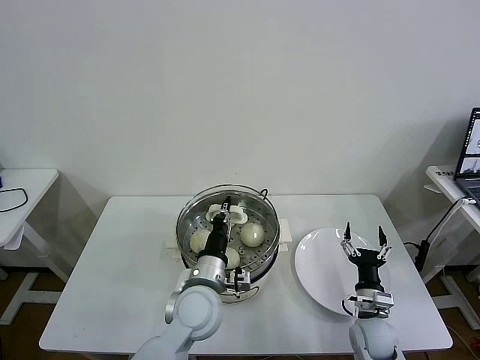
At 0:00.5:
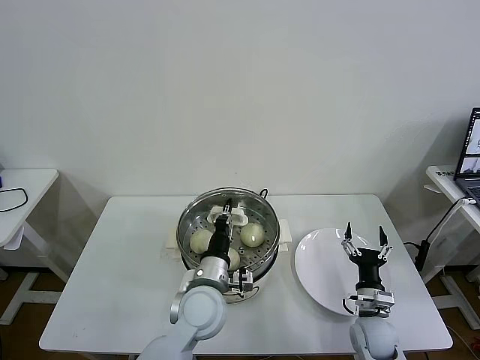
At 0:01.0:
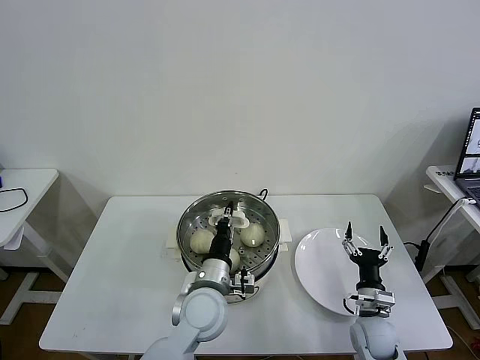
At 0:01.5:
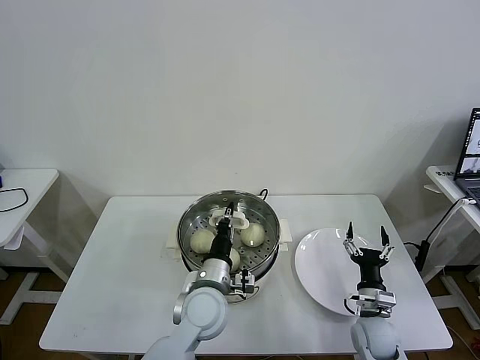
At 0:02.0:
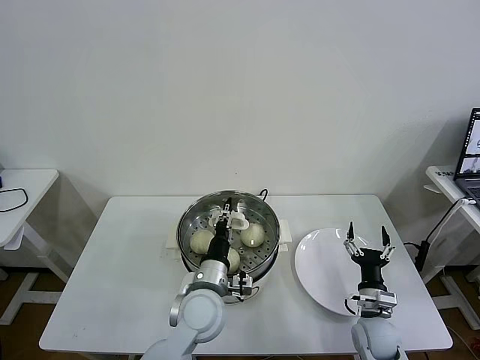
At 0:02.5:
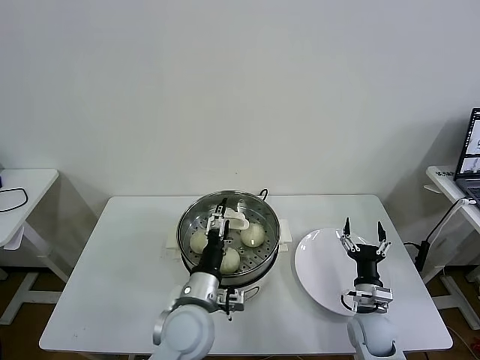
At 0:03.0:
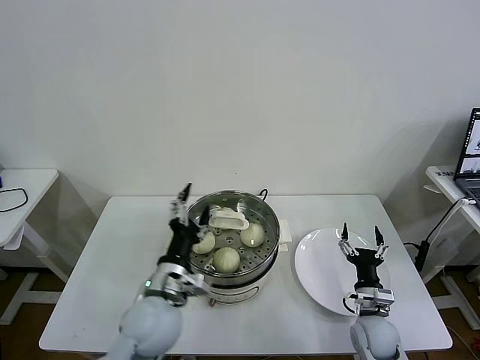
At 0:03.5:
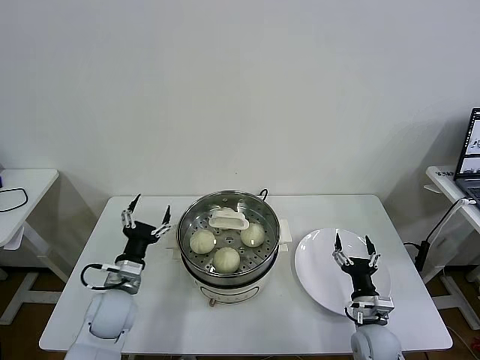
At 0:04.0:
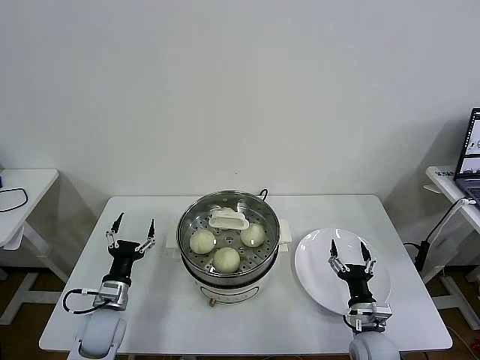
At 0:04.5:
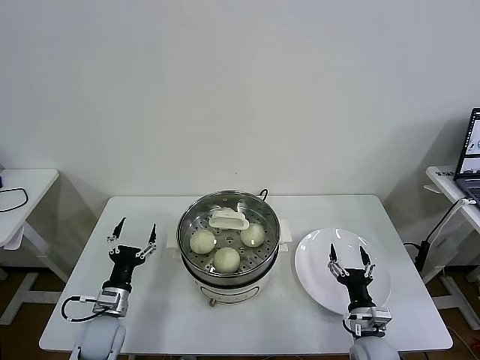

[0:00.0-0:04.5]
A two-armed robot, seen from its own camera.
Task of the whole recording: take steamed baozi put them in steamer then cover it.
Step, 0:00.0 to 0:02.5: Place the pot lid on the steamer with left gripper.
0:00.0 to 0:02.0: The grippers make only small movements.
0:02.0 to 0:04.5: The left gripper is displaced to the left and downward by about 25 cm, and opens its fingers.

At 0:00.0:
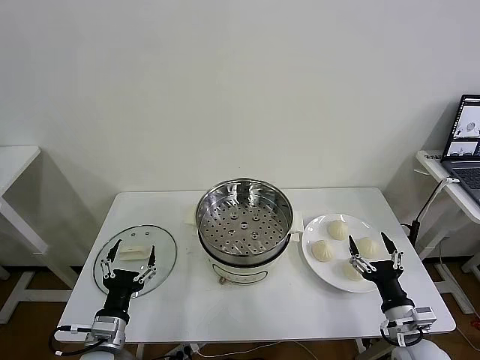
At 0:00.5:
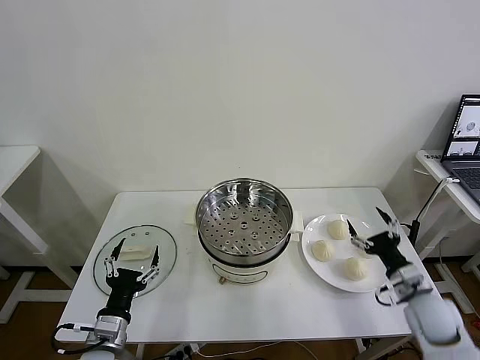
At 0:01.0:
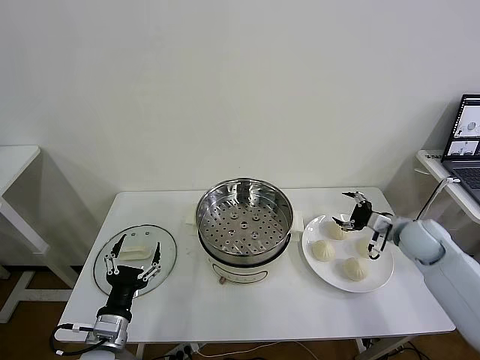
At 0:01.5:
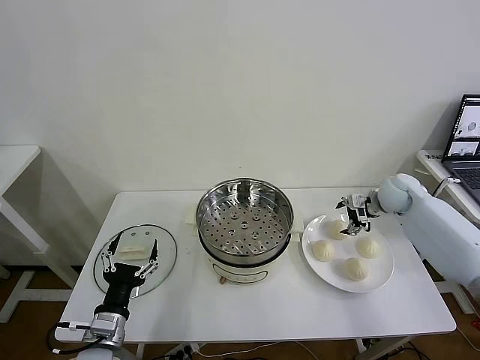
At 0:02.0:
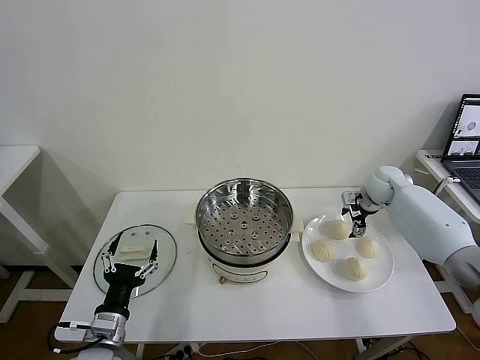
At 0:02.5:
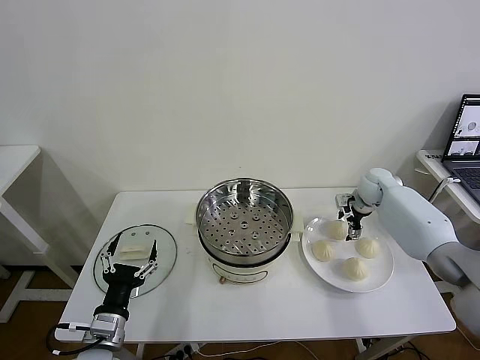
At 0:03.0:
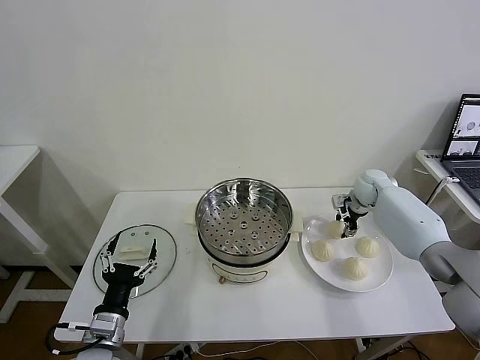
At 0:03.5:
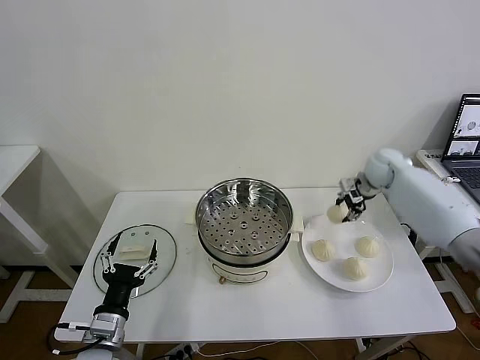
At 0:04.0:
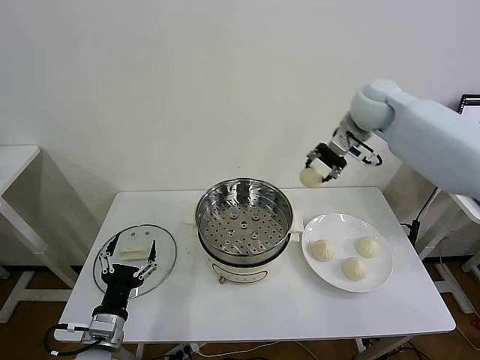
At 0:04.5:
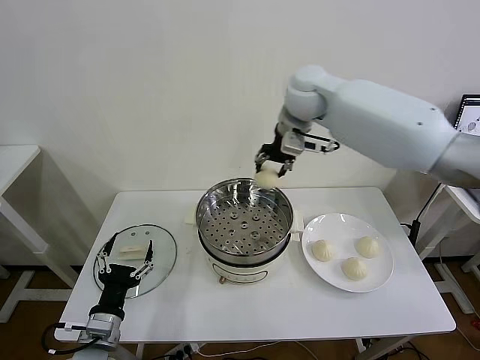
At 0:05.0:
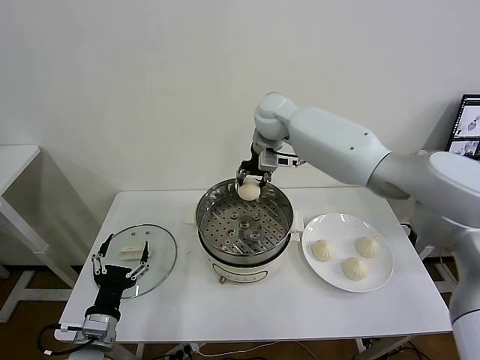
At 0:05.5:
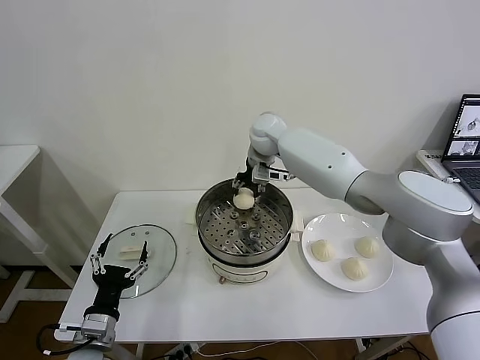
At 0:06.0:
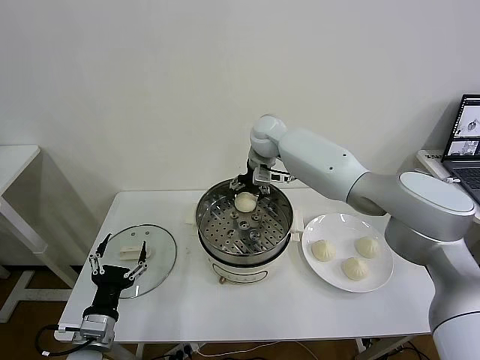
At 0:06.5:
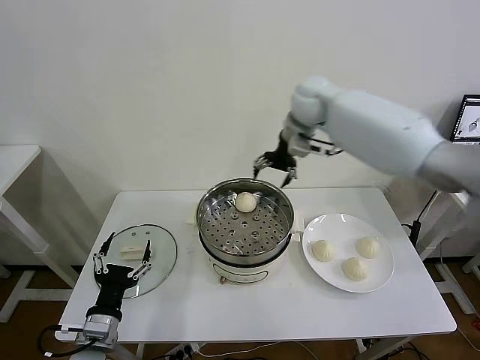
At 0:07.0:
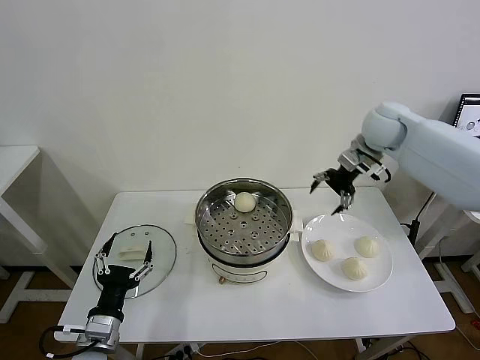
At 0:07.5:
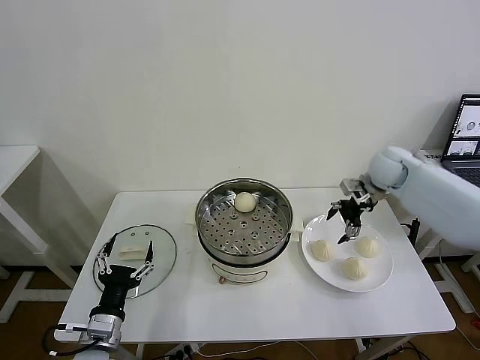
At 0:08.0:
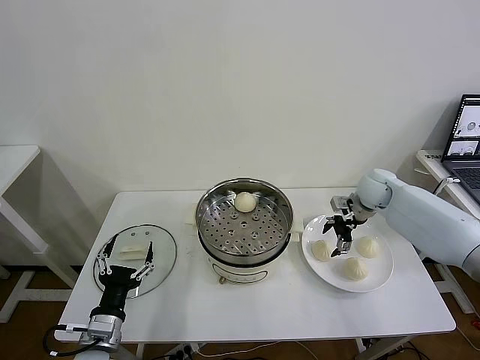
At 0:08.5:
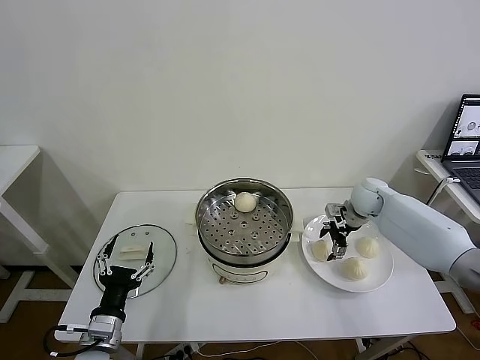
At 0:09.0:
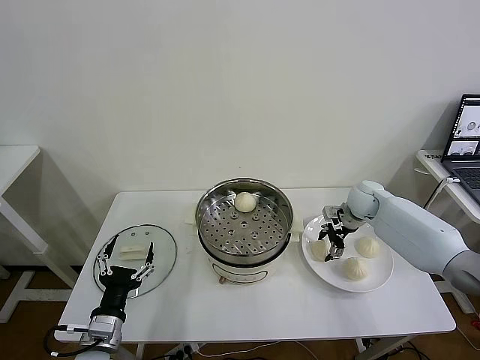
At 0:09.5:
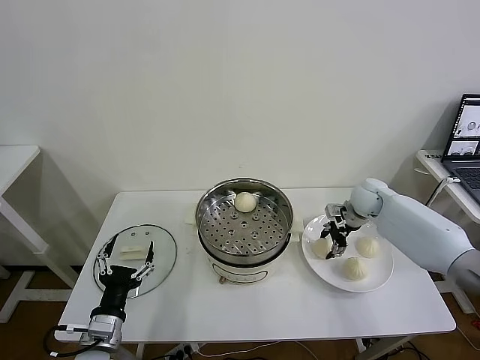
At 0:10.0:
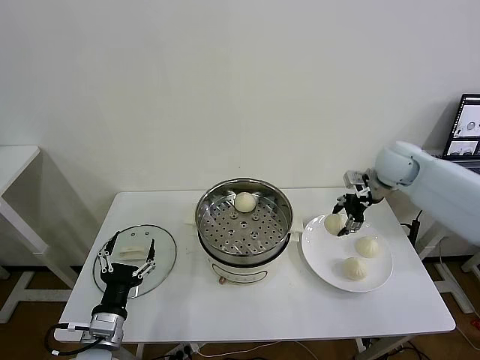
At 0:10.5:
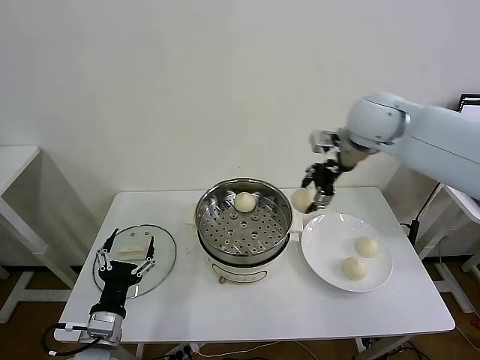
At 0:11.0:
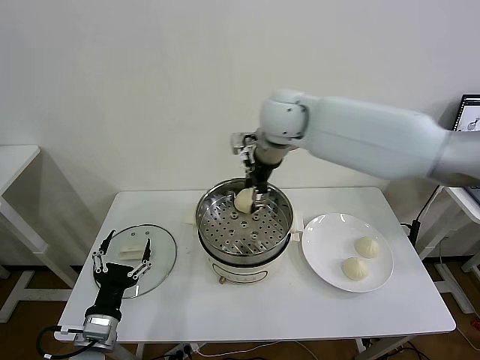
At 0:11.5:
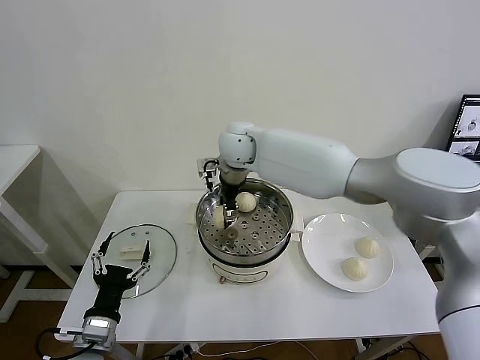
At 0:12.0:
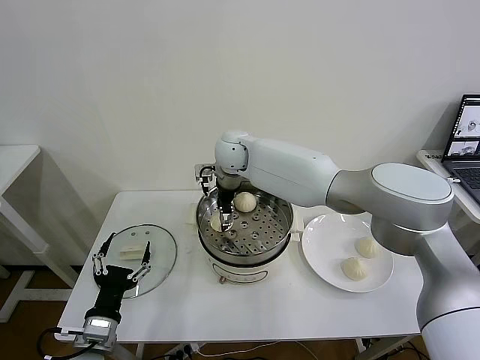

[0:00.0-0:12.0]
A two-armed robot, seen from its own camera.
Task of the whole recording: take steamed baozi put them in steamer then cover it.
Step, 0:00.0 to 0:02.5: Grasp the baozi in the plate with right gripper.
Step, 0:03.0 to 0:06.0: Place the baozi on the steamer with right gripper.
Step, 0:06.5 to 0:09.0: Grasp the baozi in the plate with right gripper.
0:02.0 to 0:04.0: The right gripper is displaced upward and to the left by approximately 30 cm, and closes its fingers.
0:04.0 to 0:06.0: The right gripper goes about 20 cm to the left and downward, and opens.
0:06.0 to 0:08.0: The right gripper travels to the right and downward by approximately 30 cm.
0:08.0 to 0:10.0: The right gripper travels upward by about 15 cm, and closes its fingers.
0:10.0 to 0:12.0: The right gripper moves to the left, some 35 cm, and opens its fingers.

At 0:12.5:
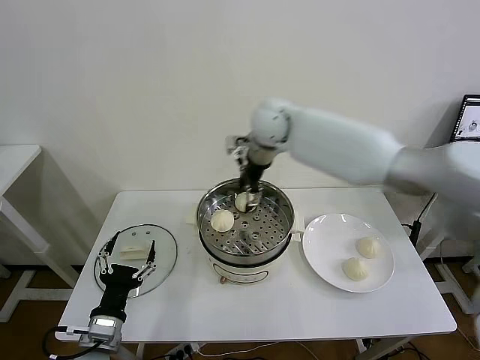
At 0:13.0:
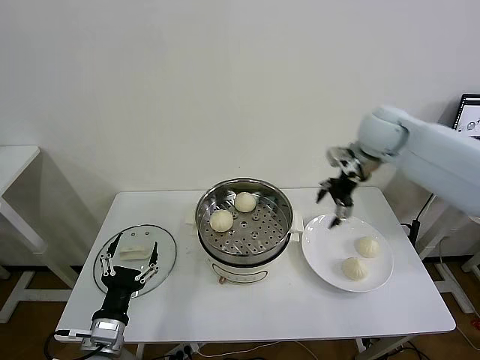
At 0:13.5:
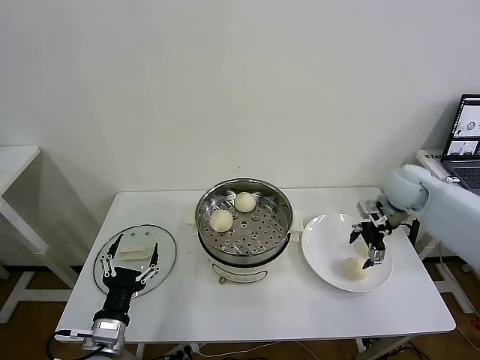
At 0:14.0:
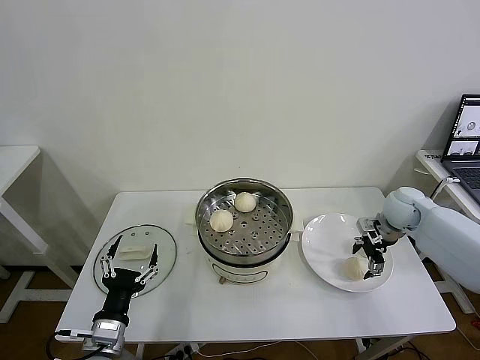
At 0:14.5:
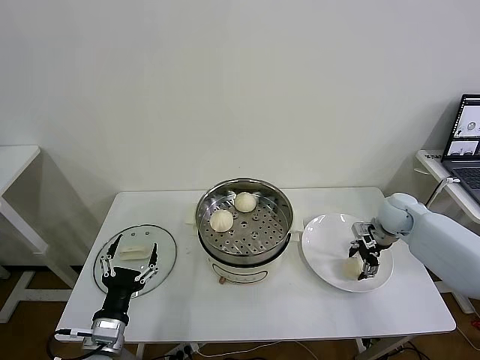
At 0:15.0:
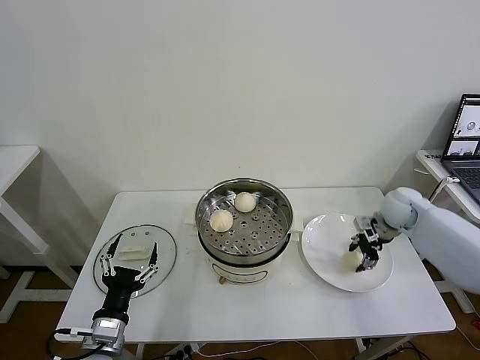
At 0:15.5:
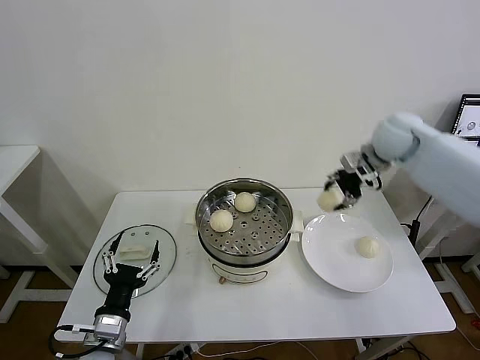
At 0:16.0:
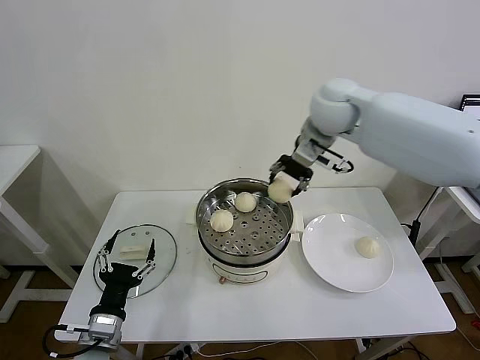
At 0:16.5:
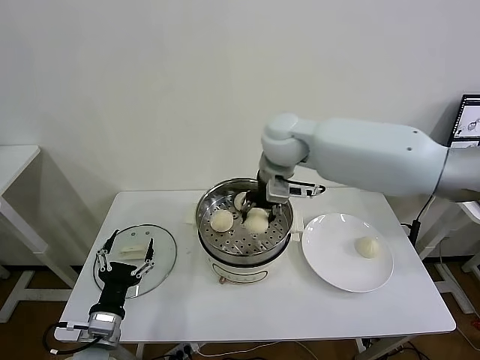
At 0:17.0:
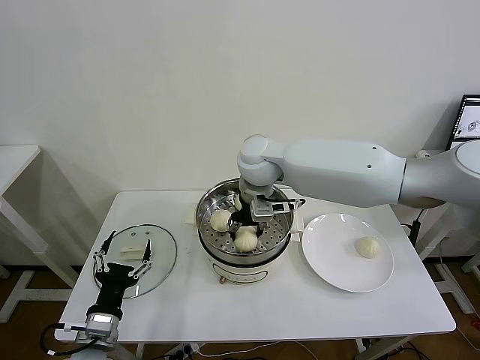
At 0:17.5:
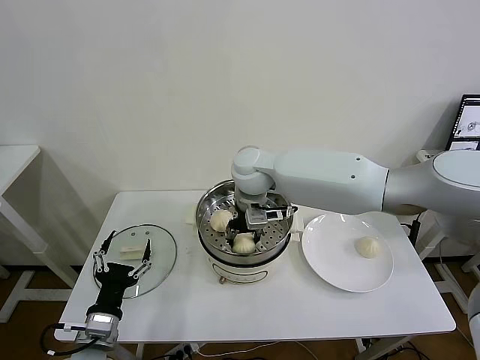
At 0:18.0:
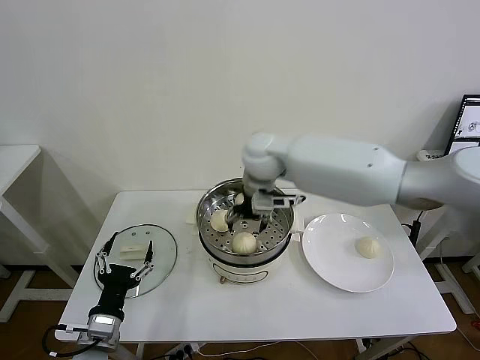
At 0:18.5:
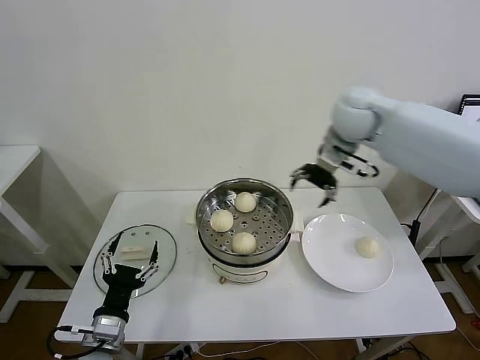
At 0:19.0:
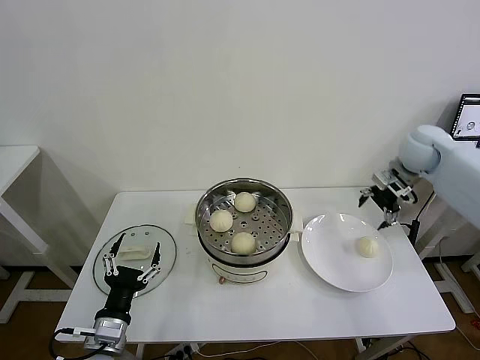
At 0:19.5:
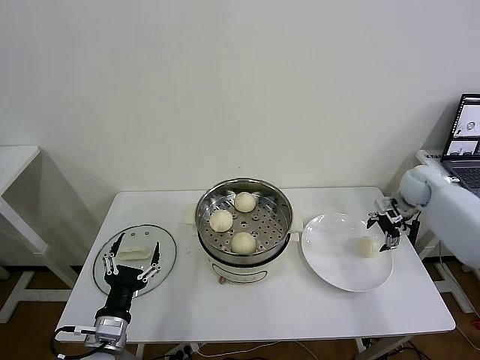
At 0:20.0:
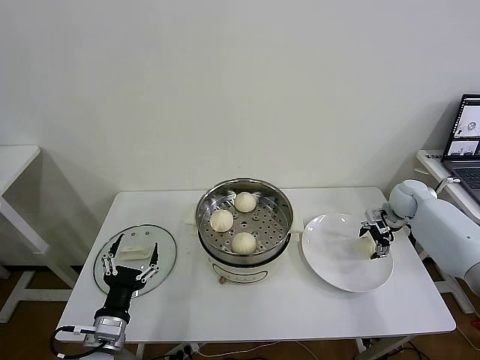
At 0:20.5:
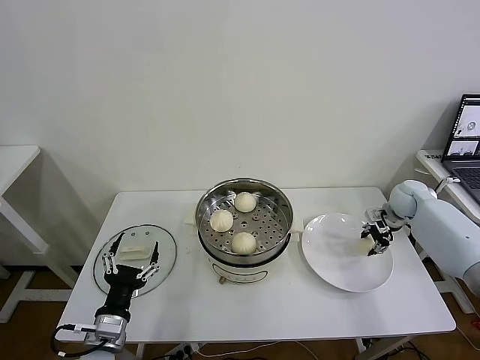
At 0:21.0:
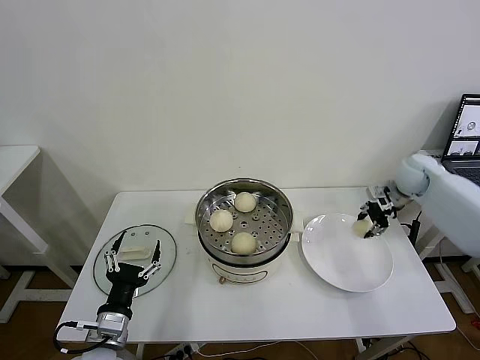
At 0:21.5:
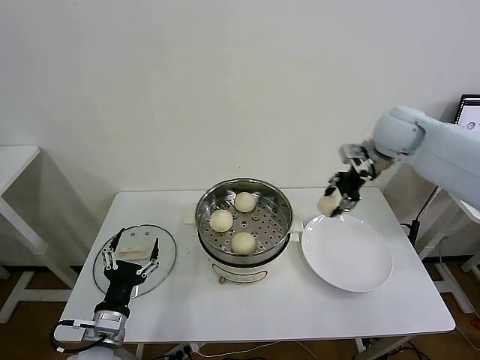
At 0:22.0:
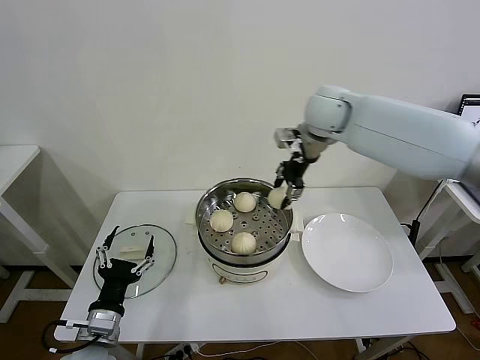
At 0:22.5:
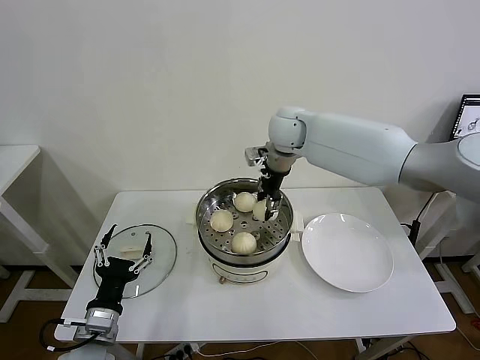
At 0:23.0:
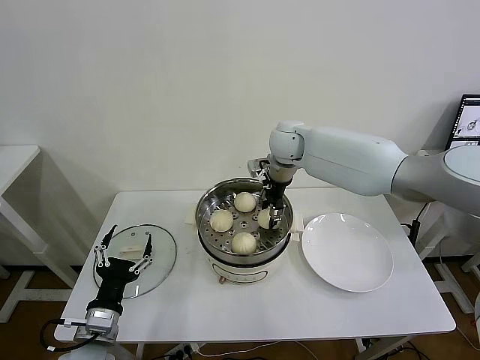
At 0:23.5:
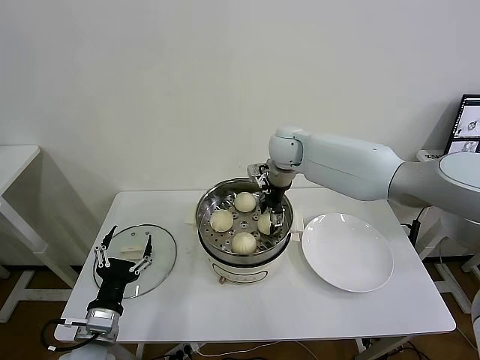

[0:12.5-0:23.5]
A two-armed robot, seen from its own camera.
Task of the whole recording: take steamed baozi put them in steamer then cover it.
Step, 0:12.5 to 0:14.5: Grasp the baozi in the plate with right gripper.
Step, 0:15.0 to 0:17.5: Place the baozi on the steamer with right gripper.
Step, 0:18.0 to 0:20.0: Grasp the baozi in the plate with right gripper.
0:12.5 to 0:14.5: The right gripper is displaced to the right and downward by about 40 cm, and closes its fingers.
0:14.5 to 0:16.0: The right gripper heads upward and to the left, covering approximately 35 cm.
0:16.0 to 0:18.0: The right gripper travels to the left and downward by approximately 15 cm, and opens.
0:18.0 to 0:20.0: The right gripper shifts some 40 cm to the right and downward.
0:20.0 to 0:21.5: The right gripper is displaced upward and to the left by roughly 25 cm, and closes its fingers.
0:21.5 to 0:23.5: The right gripper goes roughly 20 cm to the left and downward, and opens up.
